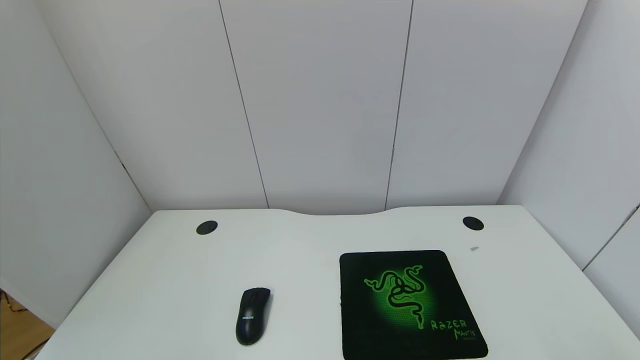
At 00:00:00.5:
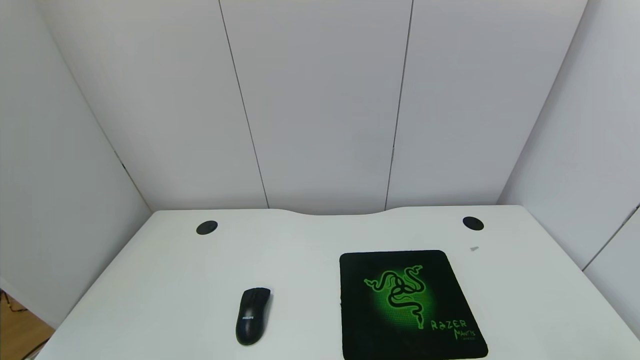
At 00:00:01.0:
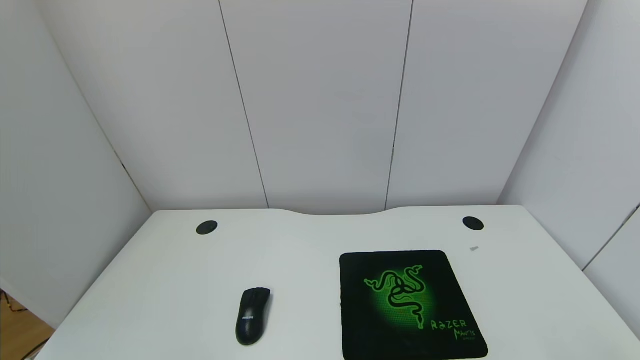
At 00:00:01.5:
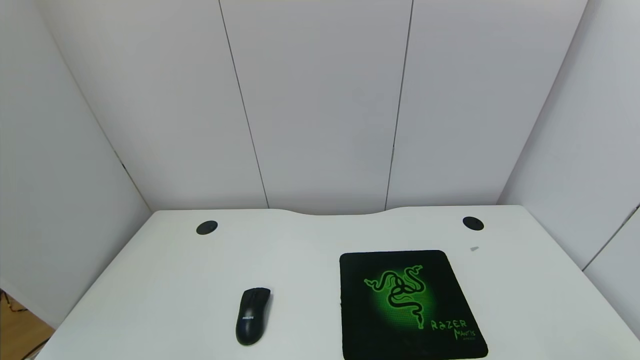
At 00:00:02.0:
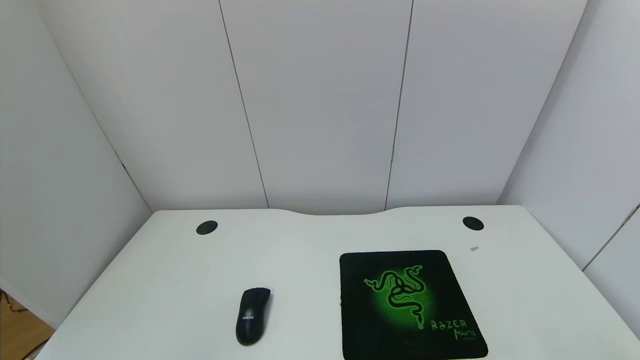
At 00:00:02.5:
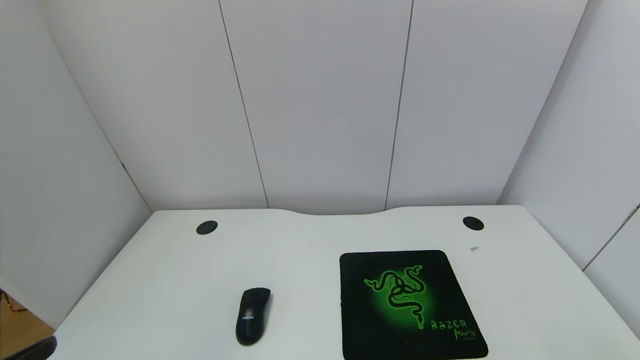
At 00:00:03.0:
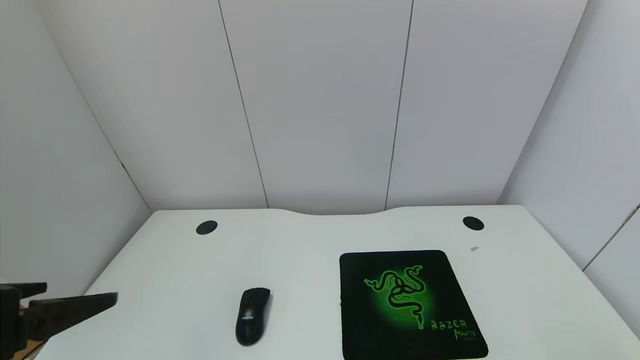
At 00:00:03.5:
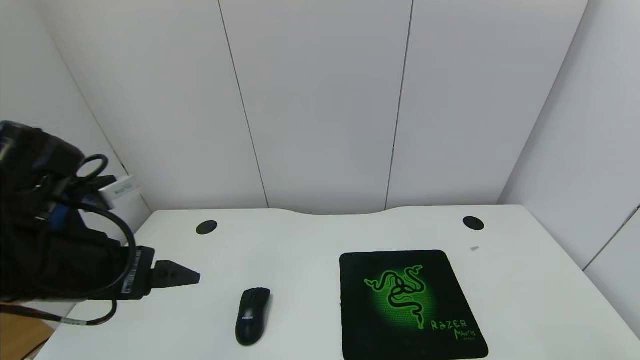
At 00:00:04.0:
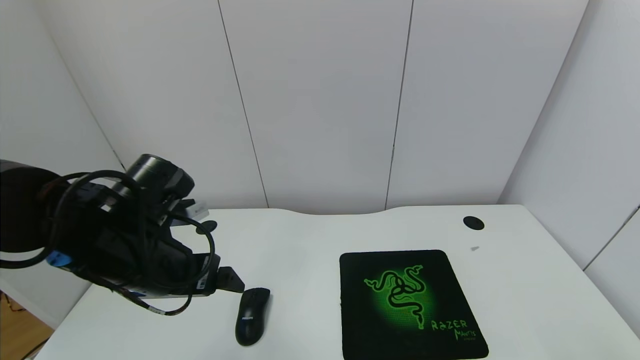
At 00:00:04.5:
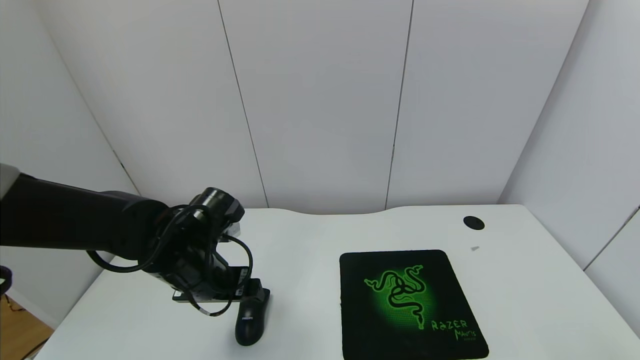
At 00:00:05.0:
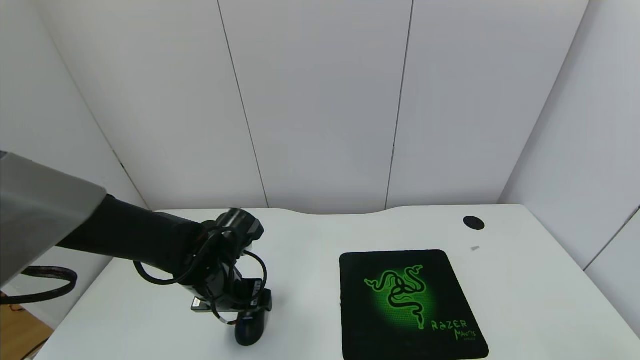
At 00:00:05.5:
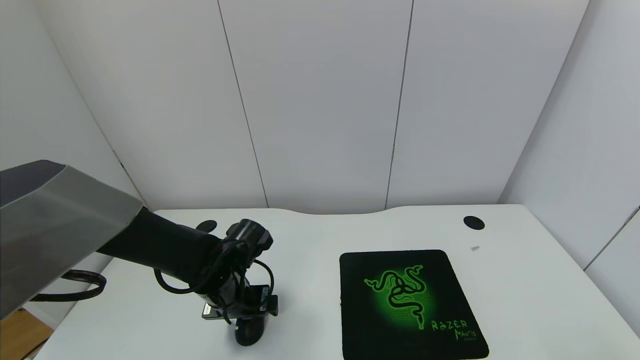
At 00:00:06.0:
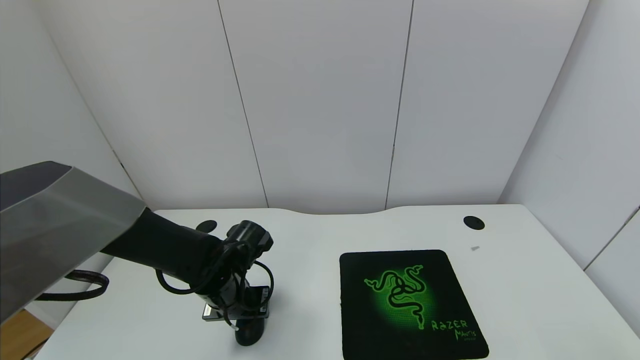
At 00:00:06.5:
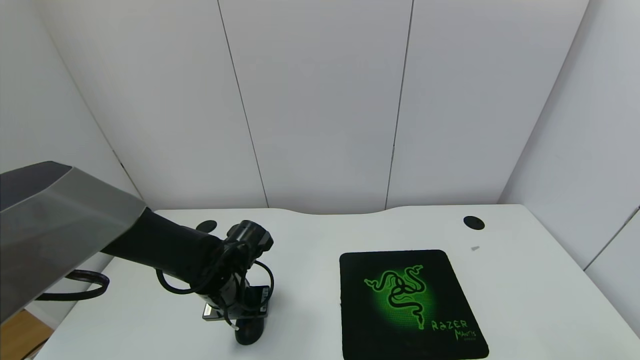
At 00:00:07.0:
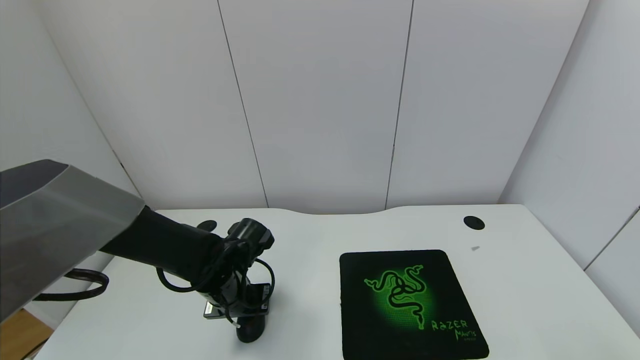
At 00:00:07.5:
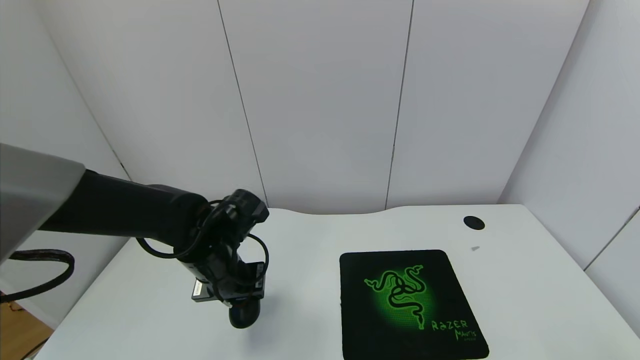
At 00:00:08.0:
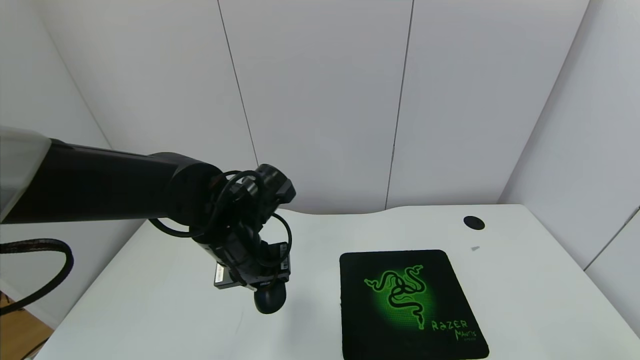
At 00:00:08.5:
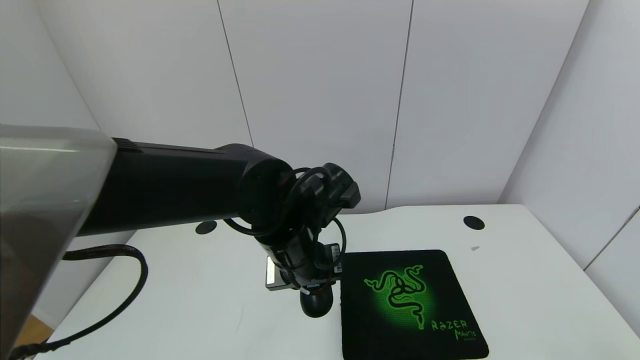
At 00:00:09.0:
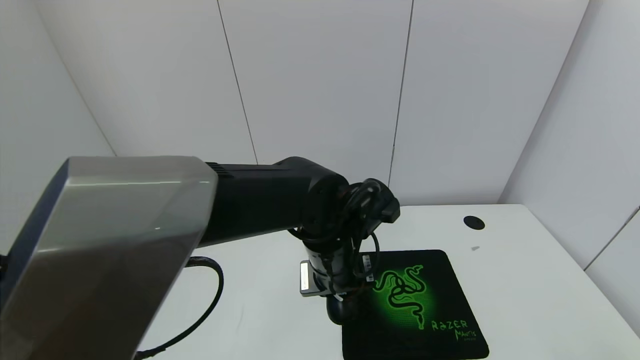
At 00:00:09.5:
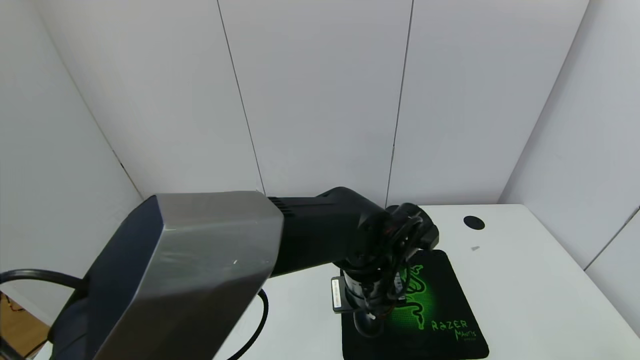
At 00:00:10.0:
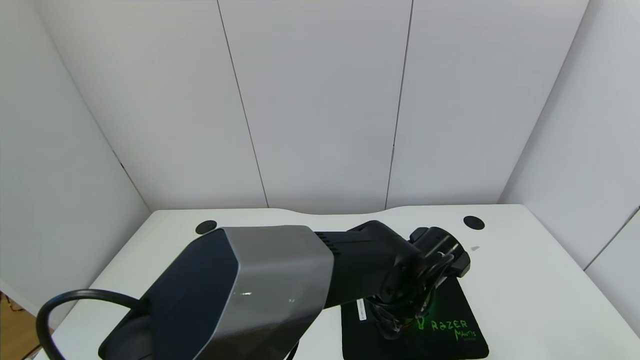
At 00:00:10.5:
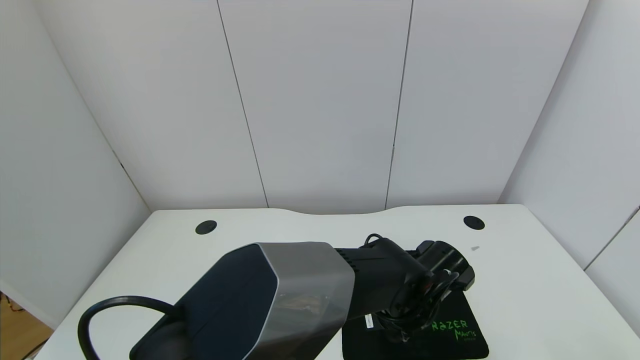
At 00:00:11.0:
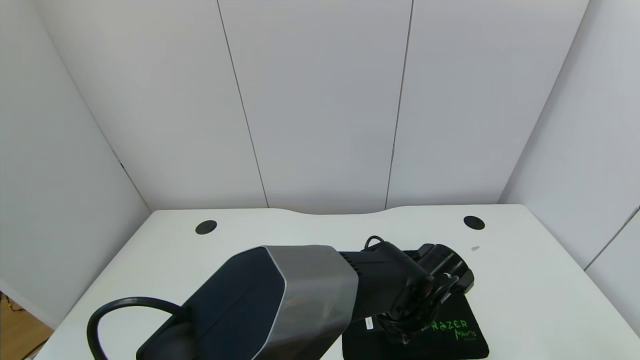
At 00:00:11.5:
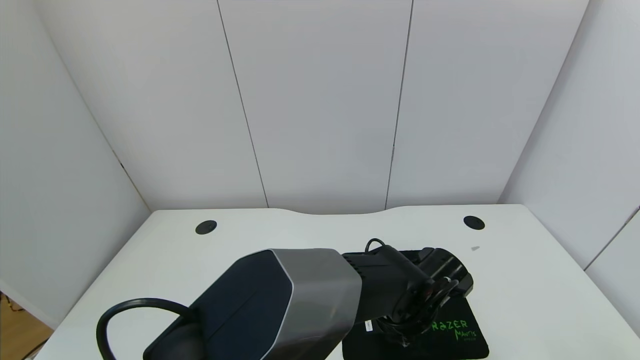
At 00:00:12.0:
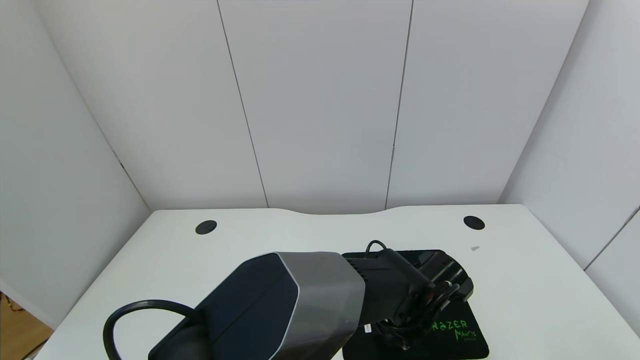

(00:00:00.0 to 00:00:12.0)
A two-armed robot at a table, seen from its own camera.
Task of the whole recording: use the gripper to move the mouse from one side of the table to the mouse pad on the opposite side.
Step, 00:00:00.0 - 00:00:06.5: Grasp the mouse with the left gripper.
00:00:02.0 - 00:00:04.0: The left gripper moves forward, roughly 30 cm.
00:00:04.0 - 00:00:06.0: The left gripper is displaced downward and forward by some 15 cm, and closes up.
00:00:06.0 - 00:00:08.0: The left gripper is displaced upward and to the right by roughly 10 cm.
00:00:08.0 - 00:00:10.0: The left gripper travels to the right by some 20 cm.
00:00:10.0 - 00:00:12.0: The grippers make only small movements.

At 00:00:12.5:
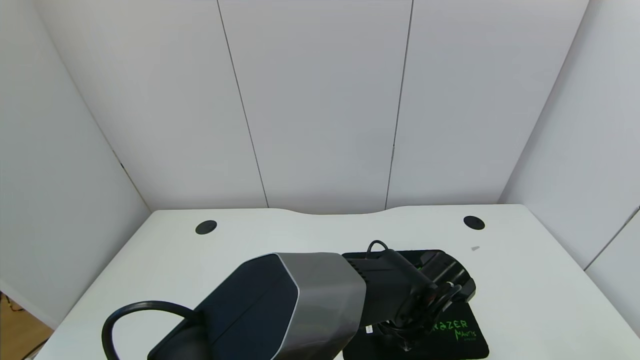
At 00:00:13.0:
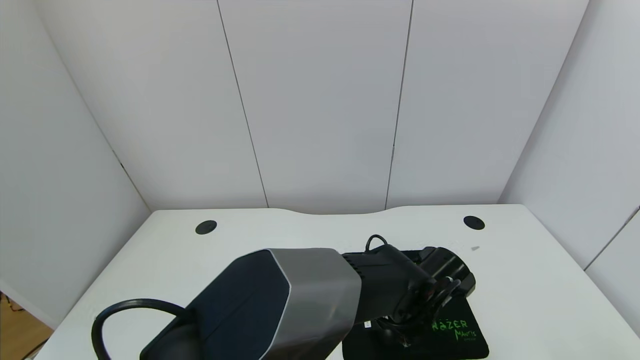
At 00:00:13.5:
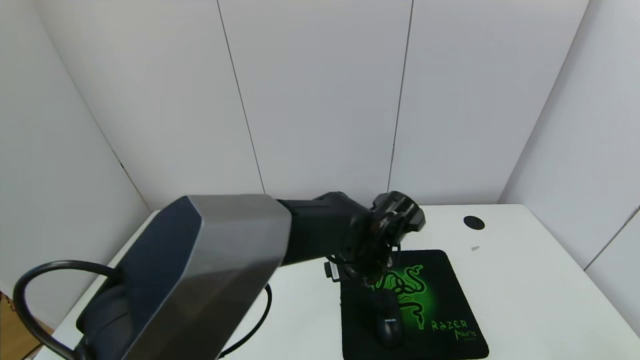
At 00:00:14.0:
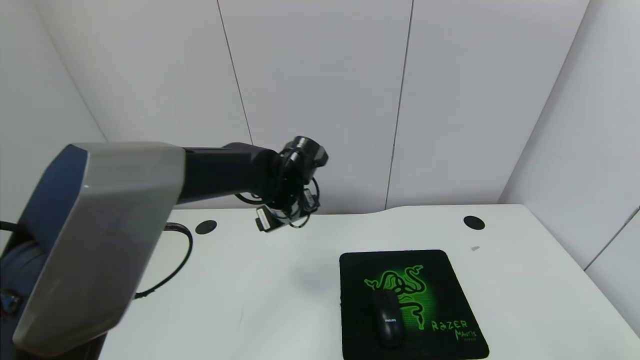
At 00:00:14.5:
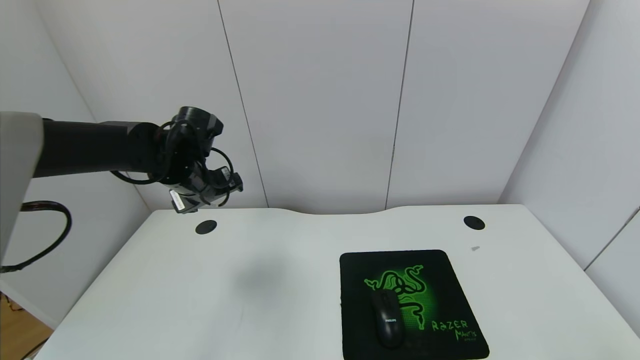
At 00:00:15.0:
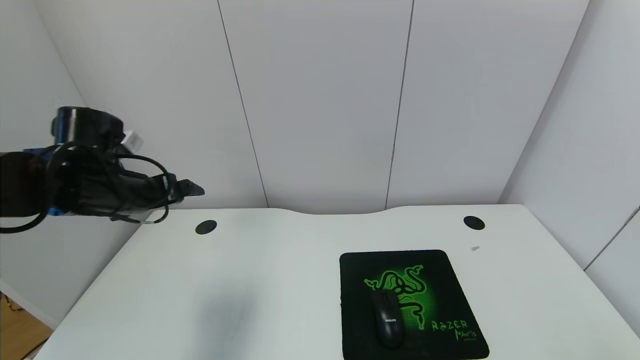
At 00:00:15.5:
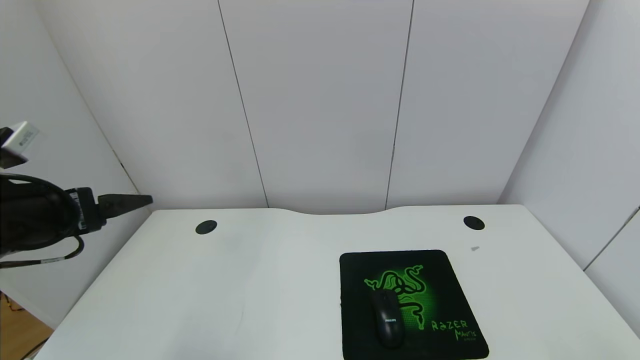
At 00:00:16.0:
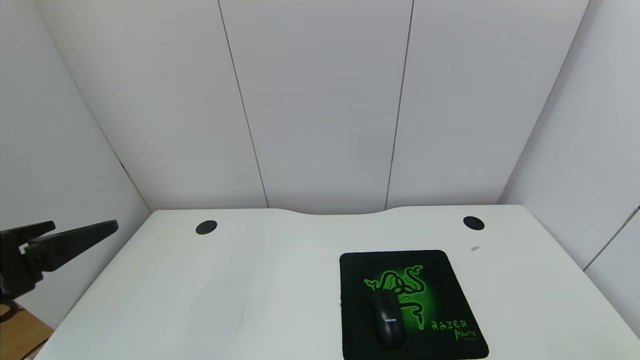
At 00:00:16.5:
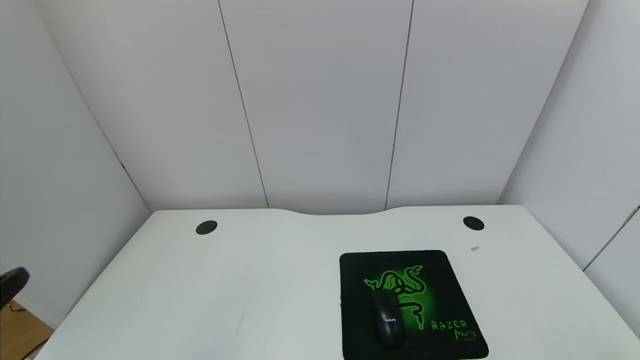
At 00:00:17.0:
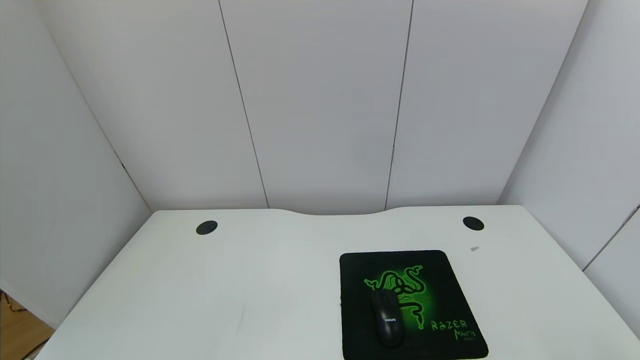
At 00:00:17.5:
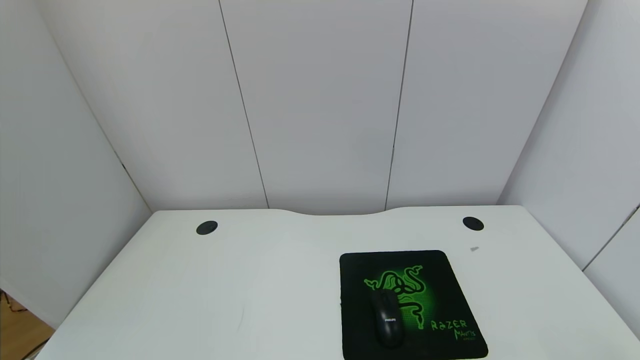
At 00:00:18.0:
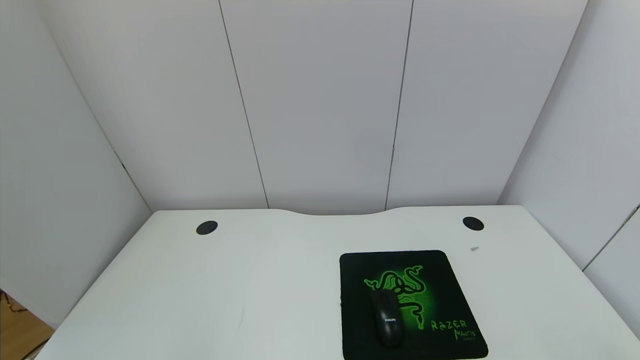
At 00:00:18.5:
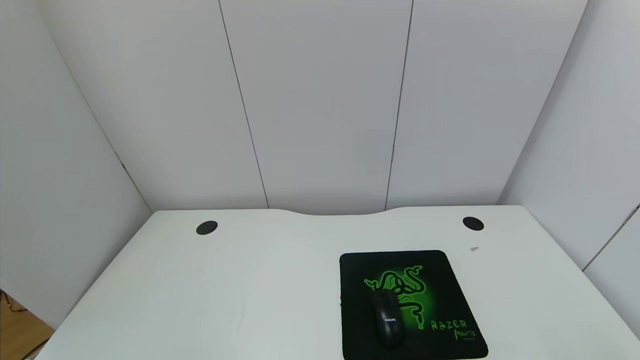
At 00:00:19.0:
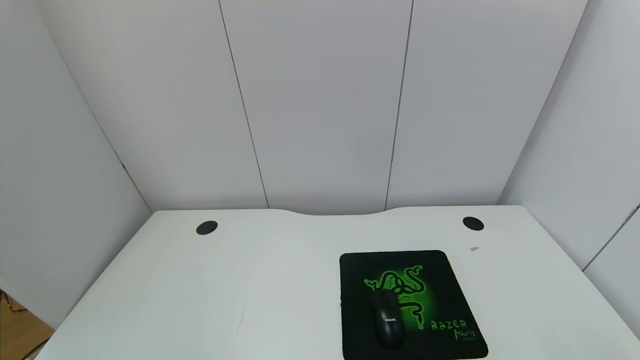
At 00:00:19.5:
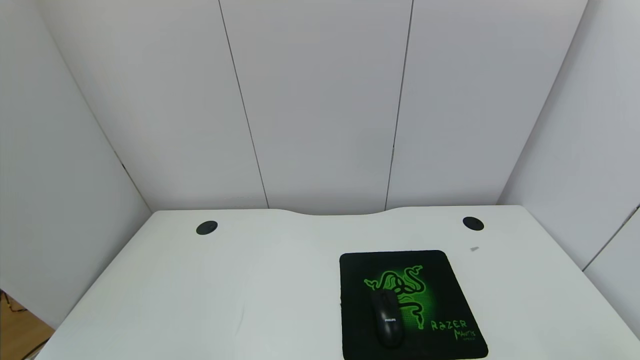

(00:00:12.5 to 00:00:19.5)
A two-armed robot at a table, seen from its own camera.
Task of the whole recording: use the gripper to move the mouse from one side of the table to the mouse pad on the opposite side.
00:00:12.5 - 00:00:14.5: The left gripper heads to the left and upward, covering roughly 35 cm.
00:00:14.5 - 00:00:16.0: The left gripper shifts approximately 30 cm backward.
00:00:16.0 - 00:00:17.5: The left gripper heads backward, covering about 20 cm.

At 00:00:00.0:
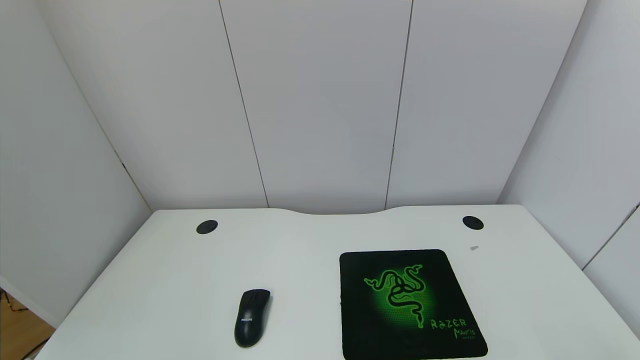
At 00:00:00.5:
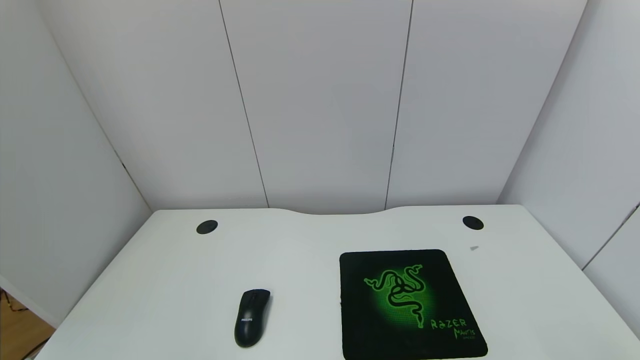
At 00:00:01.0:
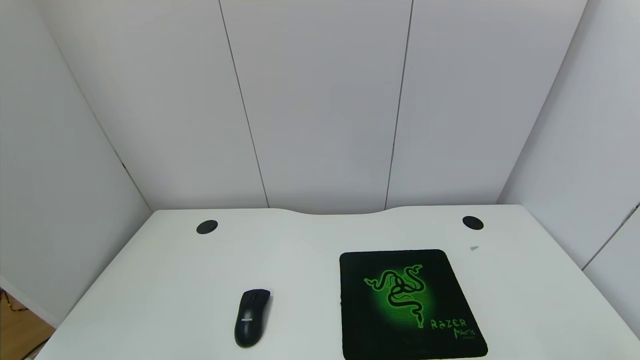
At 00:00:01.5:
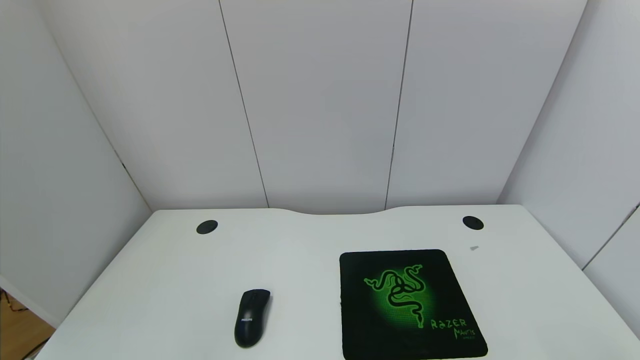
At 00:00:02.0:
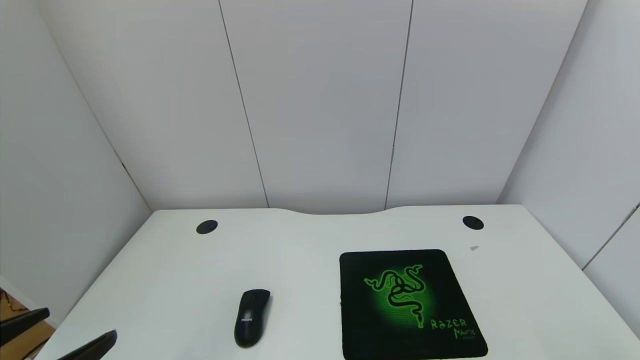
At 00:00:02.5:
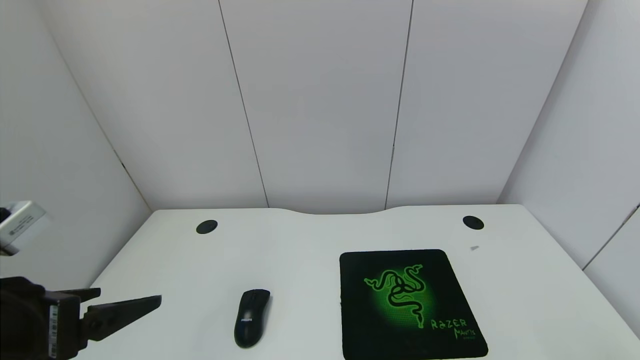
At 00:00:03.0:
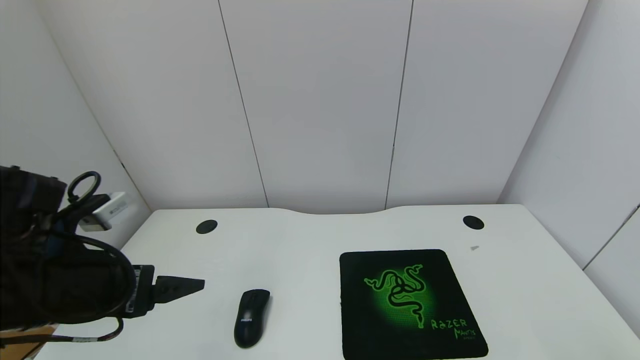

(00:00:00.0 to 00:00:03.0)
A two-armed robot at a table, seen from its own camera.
Task of the whole recording: use the gripper to move the mouse from one side of the table to the mouse pad on the opposite side.
00:00:01.5 - 00:00:03.0: The left gripper travels forward by roughly 20 cm.
